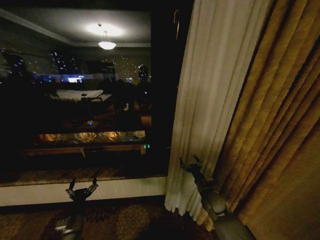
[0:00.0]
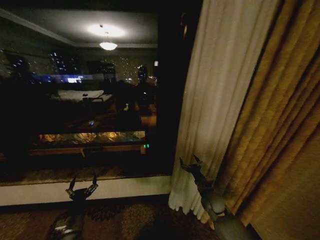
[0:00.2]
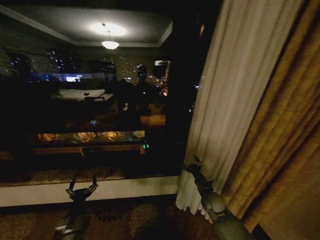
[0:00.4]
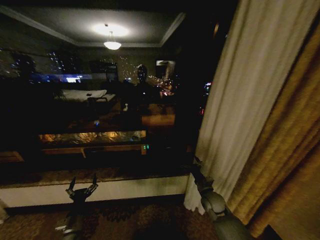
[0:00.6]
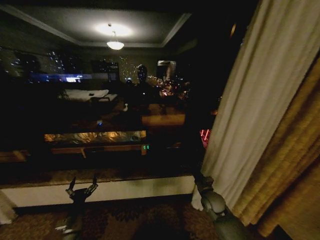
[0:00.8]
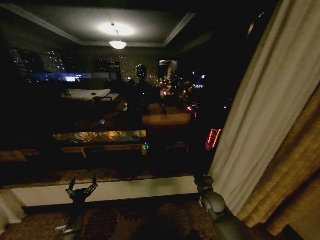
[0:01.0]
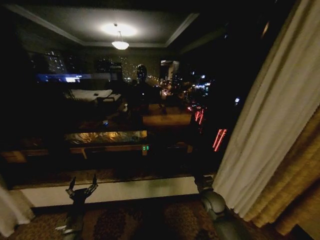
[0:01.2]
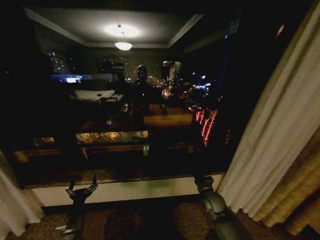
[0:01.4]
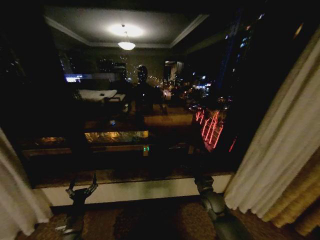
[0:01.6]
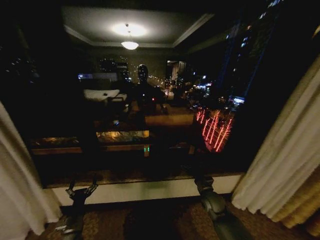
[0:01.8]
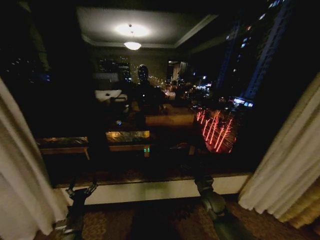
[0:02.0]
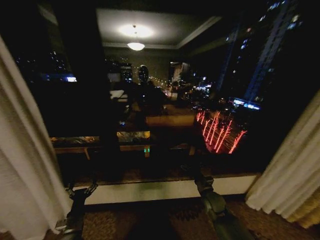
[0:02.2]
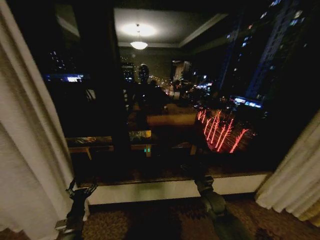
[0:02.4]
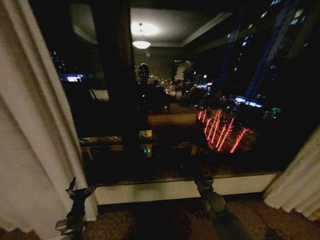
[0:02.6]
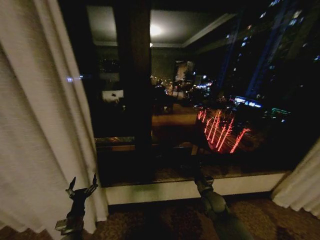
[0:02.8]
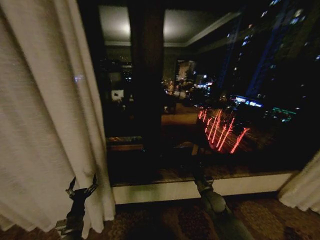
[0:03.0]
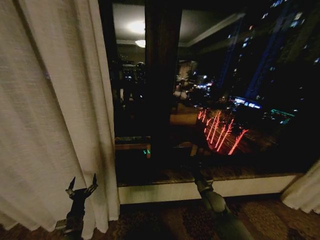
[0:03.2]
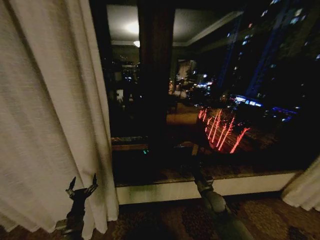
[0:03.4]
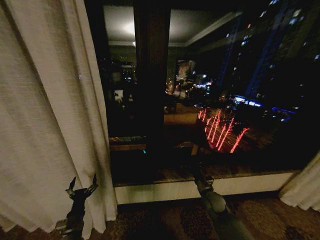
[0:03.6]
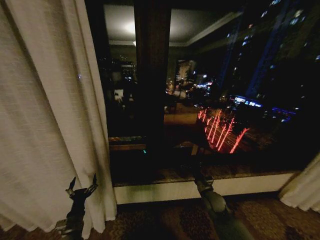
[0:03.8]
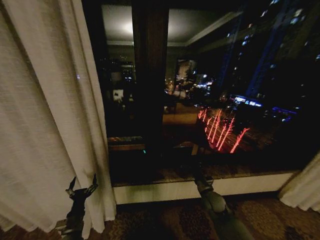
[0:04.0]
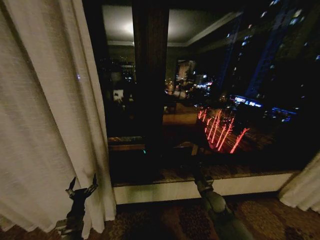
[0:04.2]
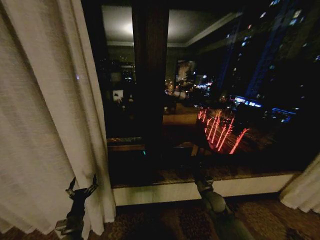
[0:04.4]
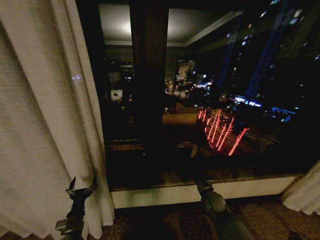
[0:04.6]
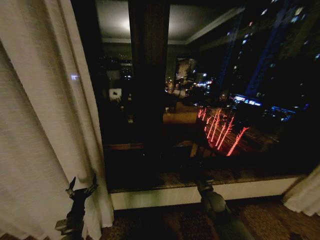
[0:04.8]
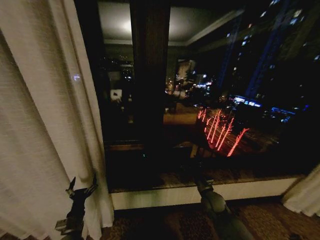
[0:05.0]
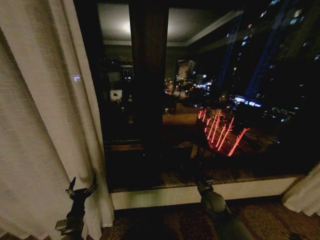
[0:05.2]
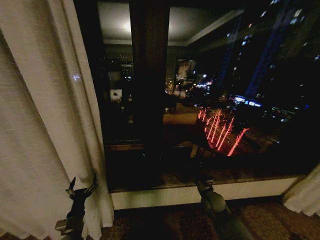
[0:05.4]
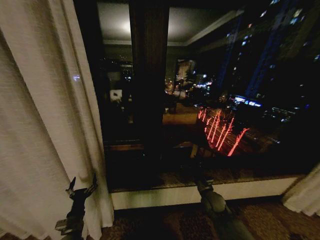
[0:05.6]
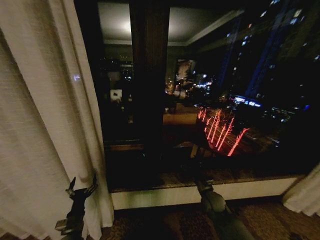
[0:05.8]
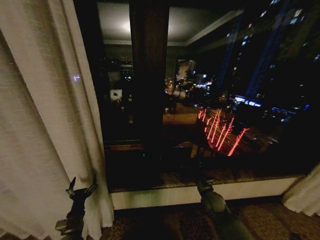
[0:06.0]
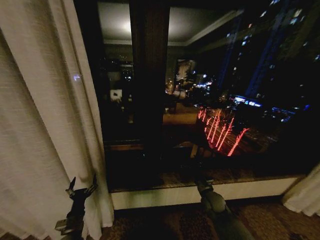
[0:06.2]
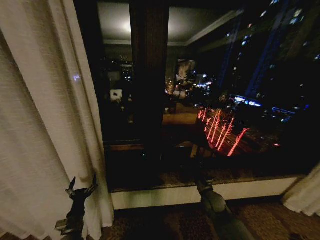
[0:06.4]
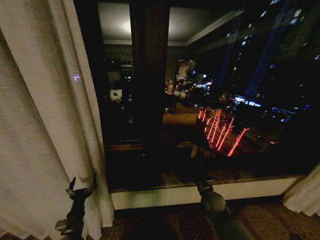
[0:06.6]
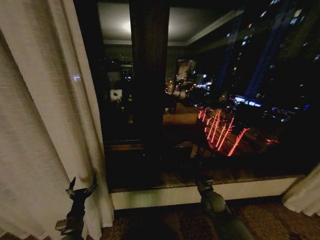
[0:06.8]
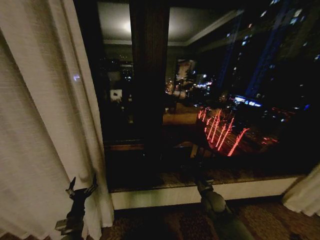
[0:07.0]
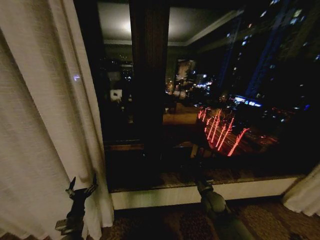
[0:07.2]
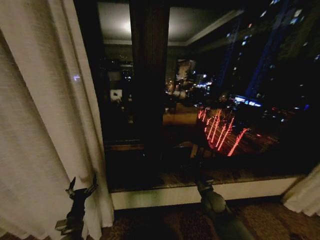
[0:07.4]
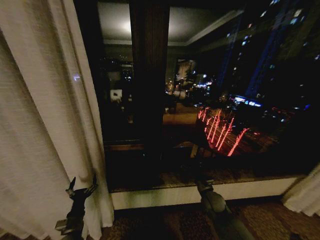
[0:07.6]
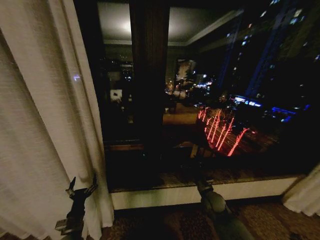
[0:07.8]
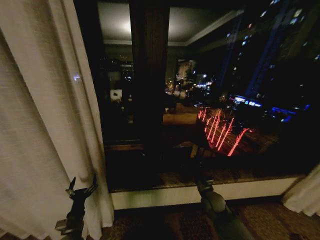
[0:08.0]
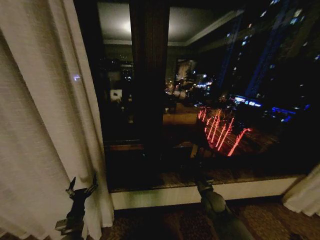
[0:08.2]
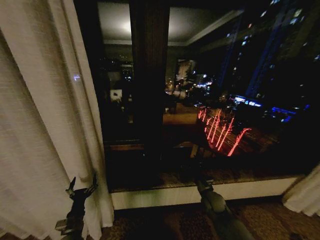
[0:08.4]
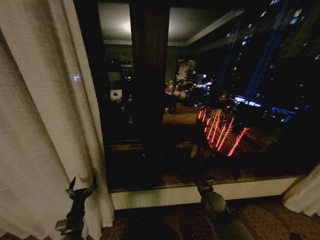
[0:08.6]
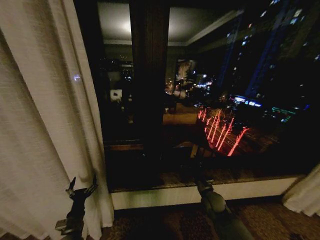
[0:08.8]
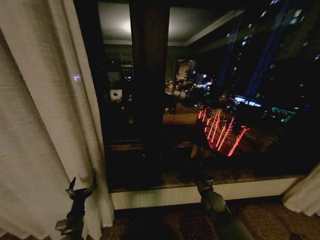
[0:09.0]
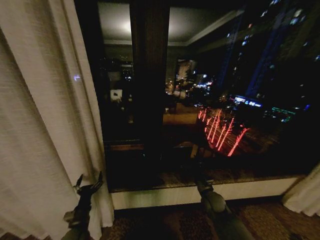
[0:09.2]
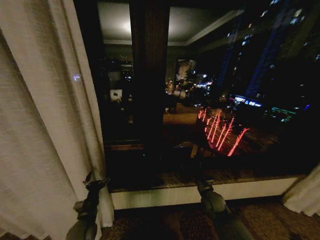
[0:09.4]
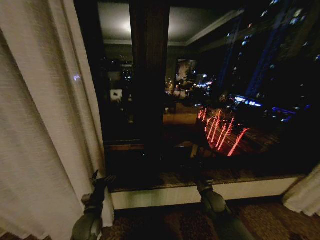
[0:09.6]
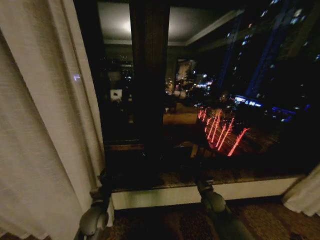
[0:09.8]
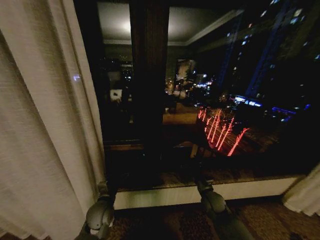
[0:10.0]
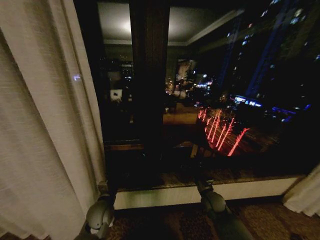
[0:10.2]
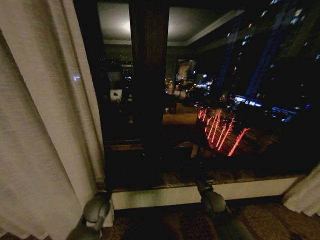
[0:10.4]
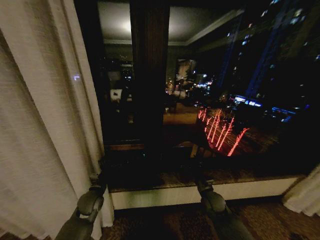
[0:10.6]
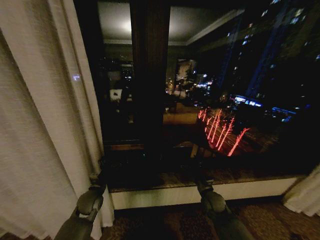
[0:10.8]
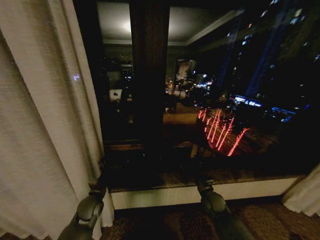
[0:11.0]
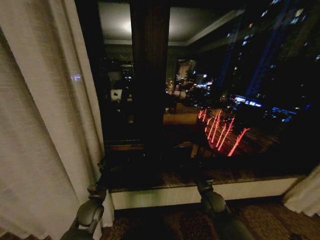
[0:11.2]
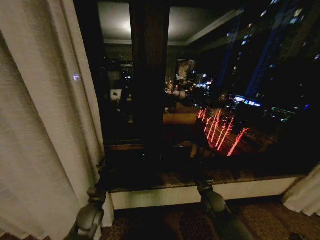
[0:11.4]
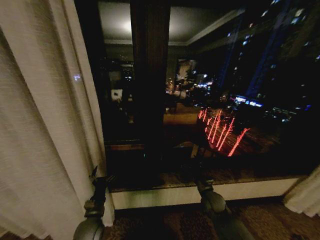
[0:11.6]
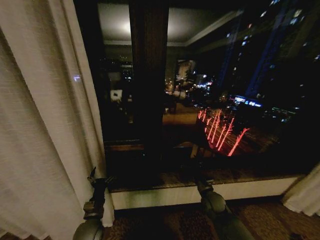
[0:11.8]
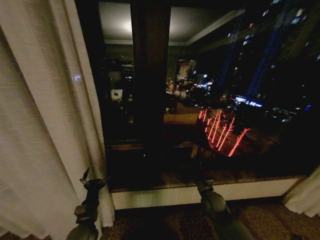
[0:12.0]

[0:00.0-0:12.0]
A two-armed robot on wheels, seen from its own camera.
Task of the whole recording: Open the curtains by pulling them apart, changing their state from closed to fully open.
0:03.0 to 0:09.0: The two grippers keep their place.
0:09.0 to 0:10.4: The left gripper travels forward, to the right and upward by some 15 cm.
0:10.4 to 0:12.0: The left gripper is displaced backward by some 10 cm.

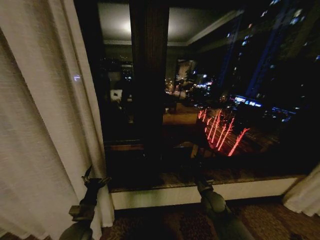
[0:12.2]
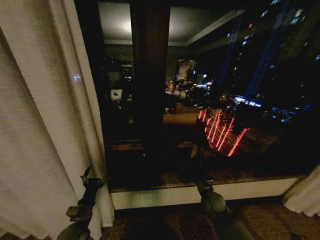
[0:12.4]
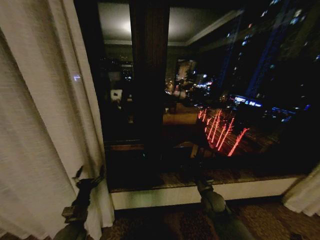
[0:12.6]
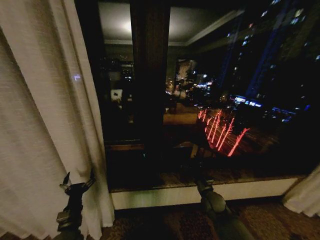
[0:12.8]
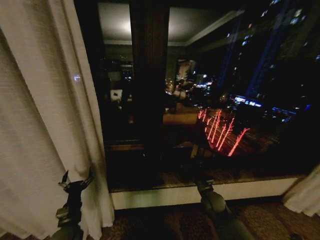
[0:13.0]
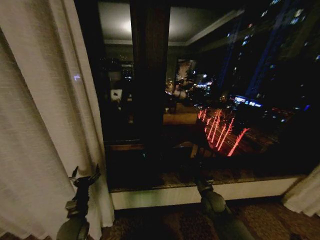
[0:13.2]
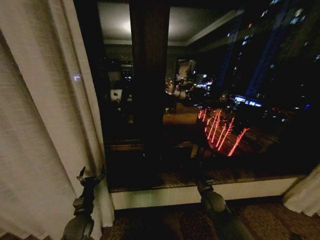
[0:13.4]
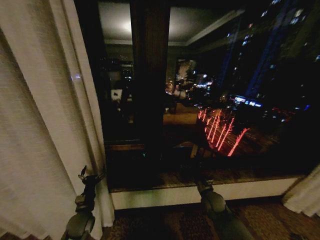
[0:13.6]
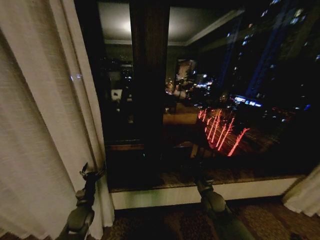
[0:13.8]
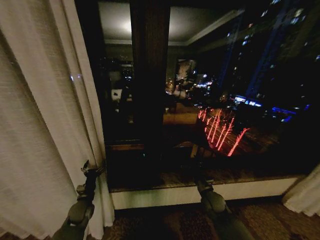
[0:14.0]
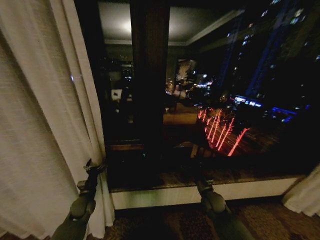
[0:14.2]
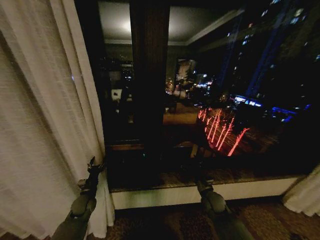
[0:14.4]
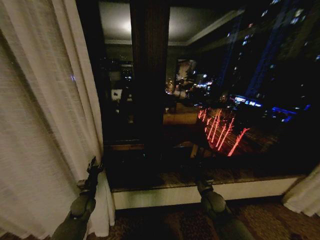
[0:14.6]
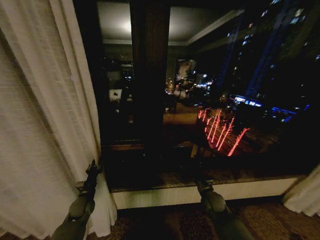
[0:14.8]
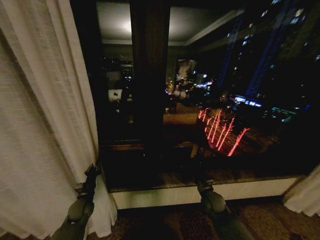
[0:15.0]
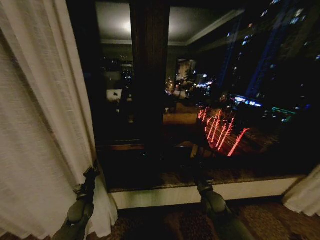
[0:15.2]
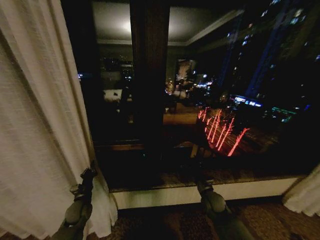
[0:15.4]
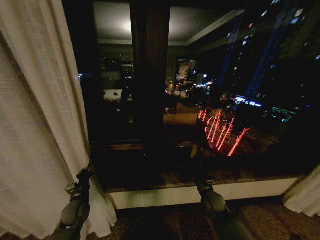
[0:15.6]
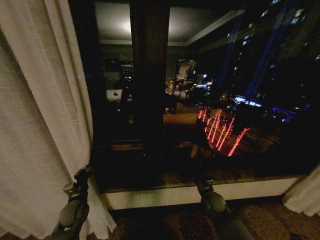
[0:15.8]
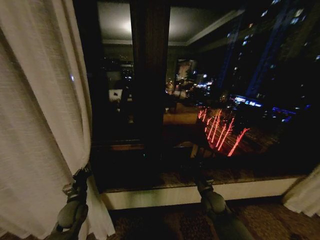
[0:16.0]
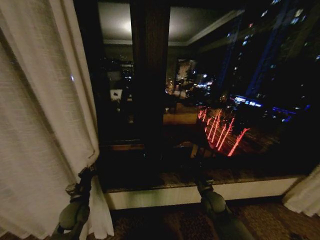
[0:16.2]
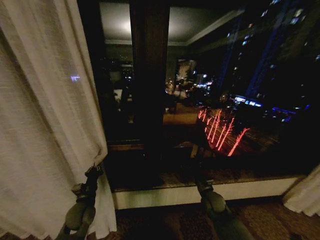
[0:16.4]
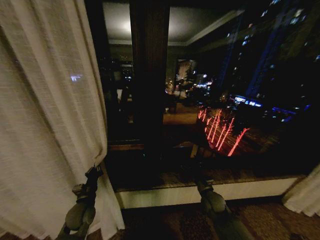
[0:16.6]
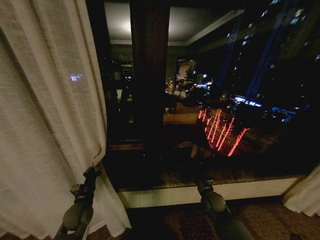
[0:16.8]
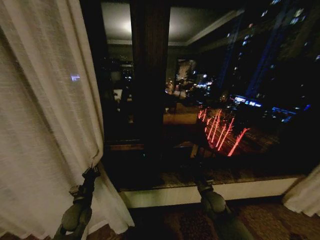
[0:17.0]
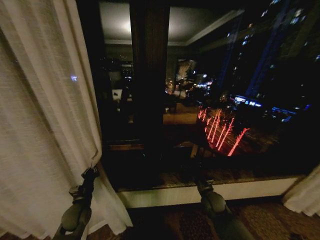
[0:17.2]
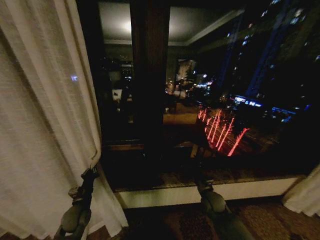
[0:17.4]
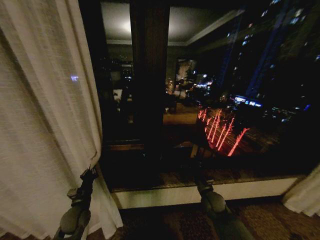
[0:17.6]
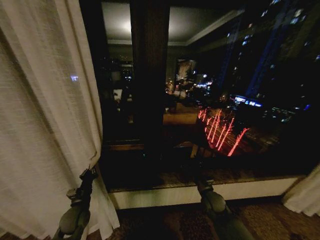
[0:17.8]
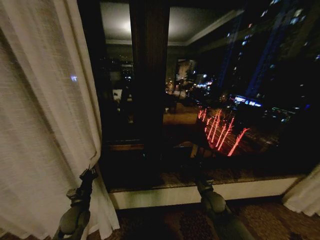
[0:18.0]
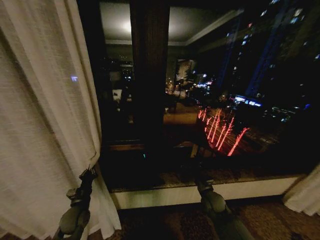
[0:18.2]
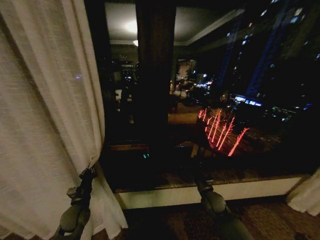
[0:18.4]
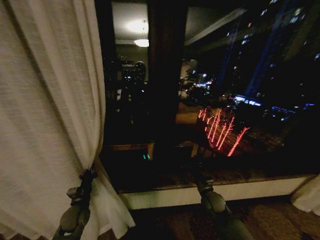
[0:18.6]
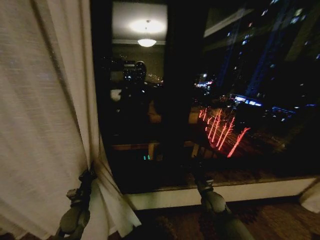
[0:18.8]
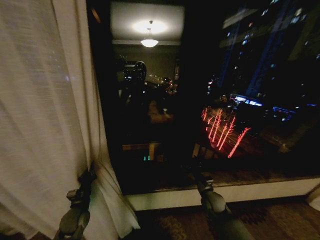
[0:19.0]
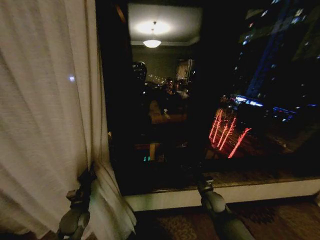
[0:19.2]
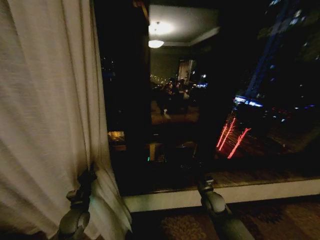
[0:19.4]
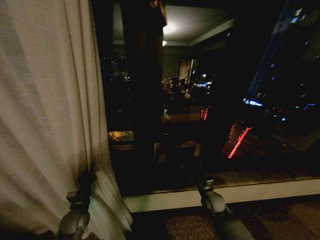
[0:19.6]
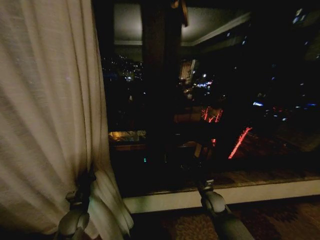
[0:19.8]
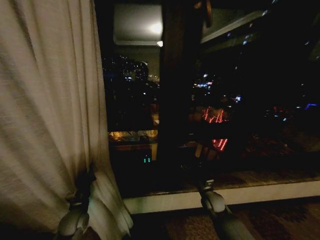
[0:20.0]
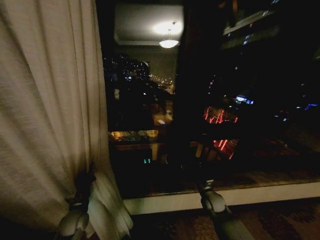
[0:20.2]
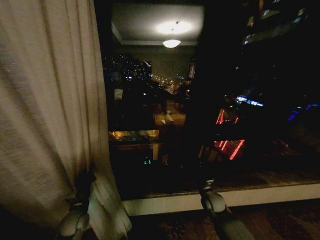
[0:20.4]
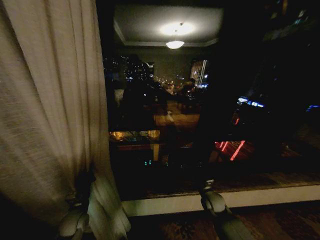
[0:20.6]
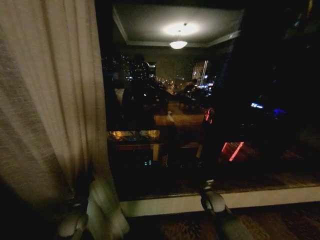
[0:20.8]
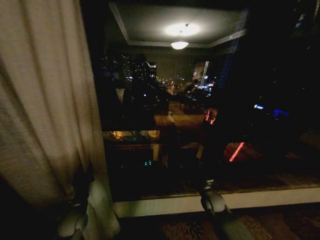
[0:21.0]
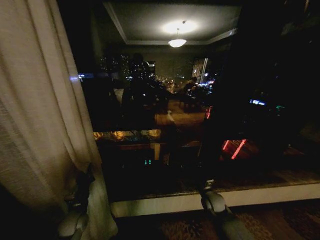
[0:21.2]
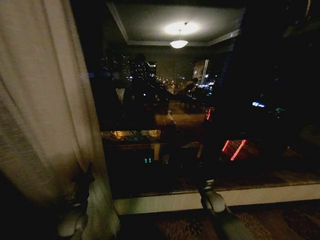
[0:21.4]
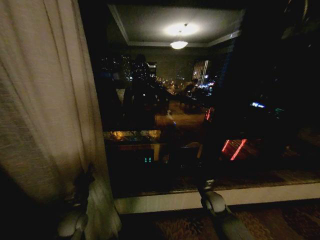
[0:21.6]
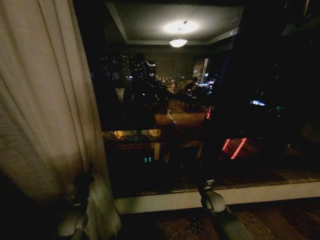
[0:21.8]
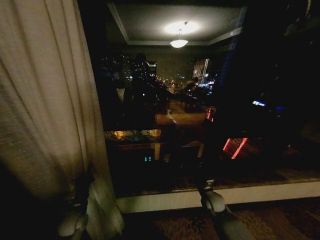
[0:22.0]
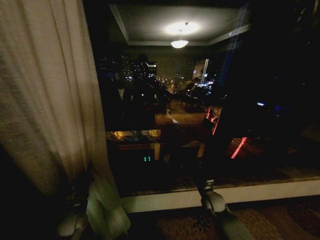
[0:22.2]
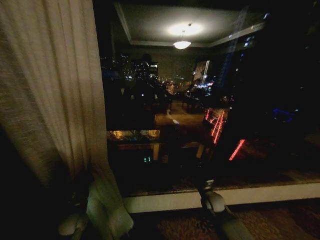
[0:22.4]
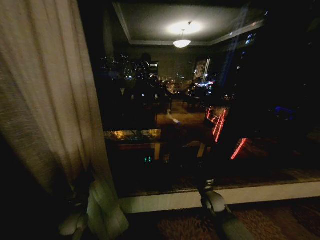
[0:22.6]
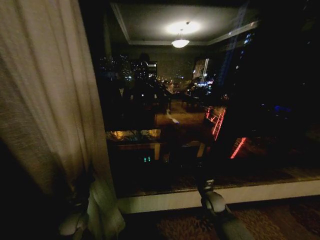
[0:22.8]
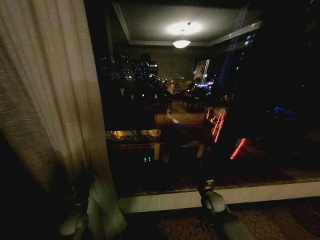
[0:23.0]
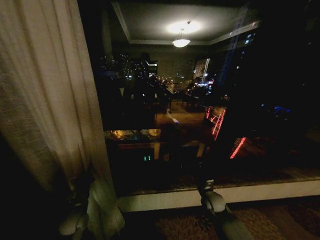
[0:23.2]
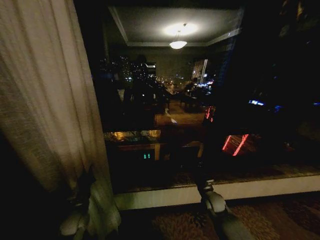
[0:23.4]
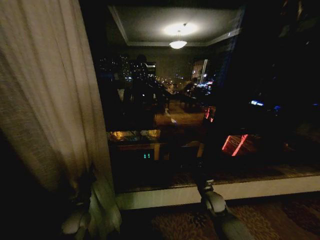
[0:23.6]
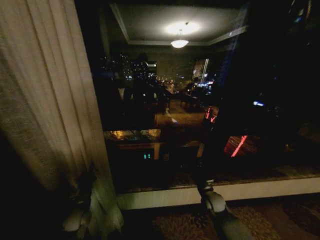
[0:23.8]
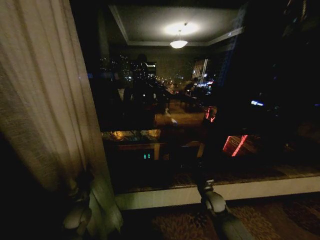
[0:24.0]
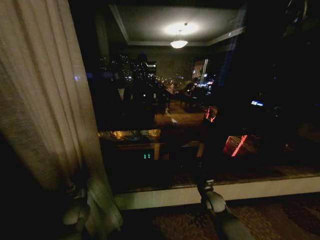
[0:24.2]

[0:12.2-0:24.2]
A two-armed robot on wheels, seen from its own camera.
Task of the whole recording: Open the curtains by pulling them apart, changing their state from closed to fully open.
0:12.2 to 0:13.8: The left gripper heads forward, covering some 10 cm.
0:13.8 to 0:15.2: The left gripper closes.
0:15.2 to 0:16.6: The left gripper is displaced upward by about 5 cm.
0:16.6 to 0:18.2: The grippers move only a little.
0:21.2 to 0:22.6: Both grippers stay put.
0:22.6 to 0:24.2: The grippers make only small movements.
